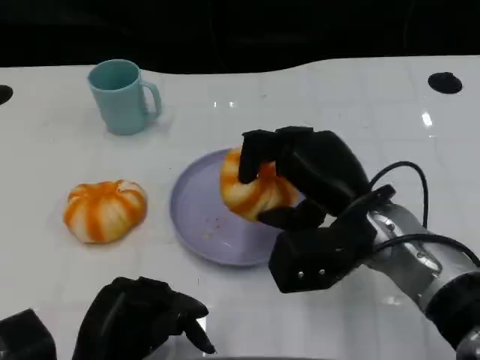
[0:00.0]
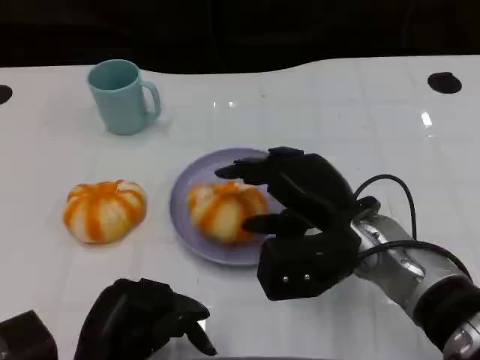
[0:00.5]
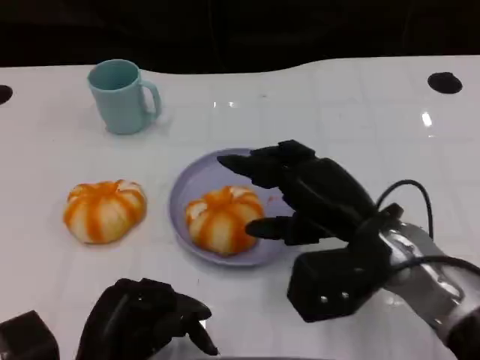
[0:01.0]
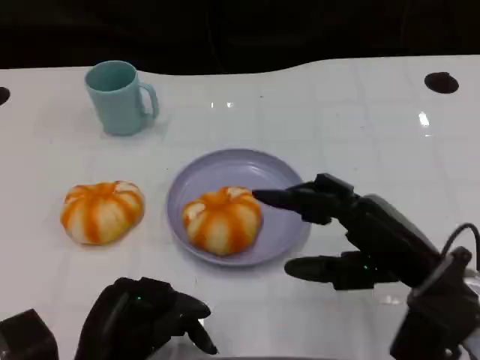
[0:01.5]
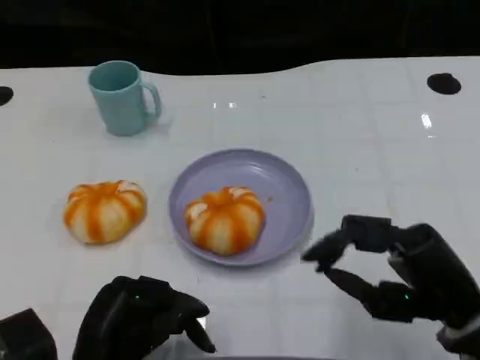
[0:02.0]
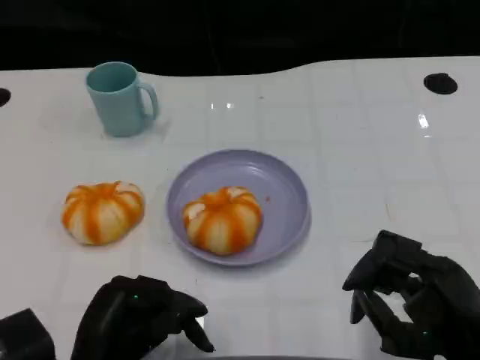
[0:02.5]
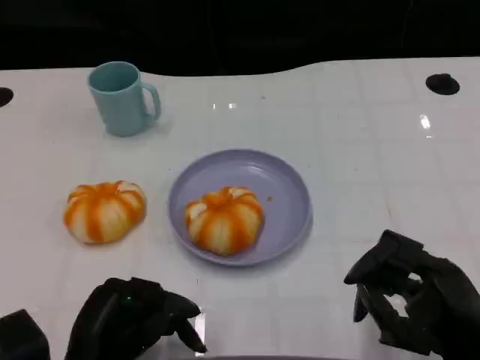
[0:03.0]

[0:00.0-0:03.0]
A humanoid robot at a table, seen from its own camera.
Task of the whole recording: Grasp the bread from the table and place it into the plate.
0:00.0 to 0:01.5: The right hand goes roughly 10 cm to the right and backward.
0:01.5 to 0:03.0: The right hand travels backward by approximately 5 cm.

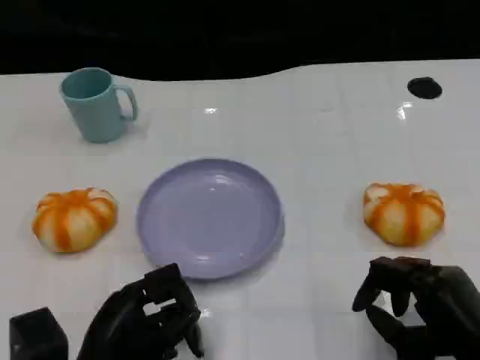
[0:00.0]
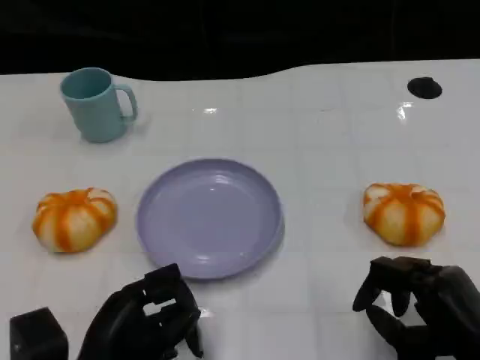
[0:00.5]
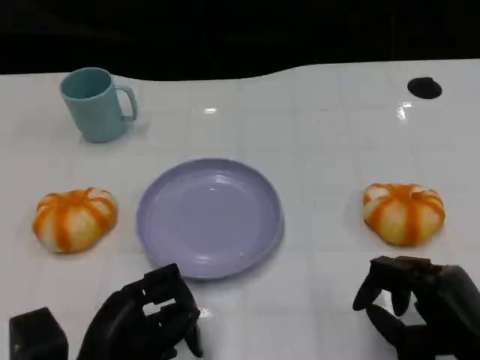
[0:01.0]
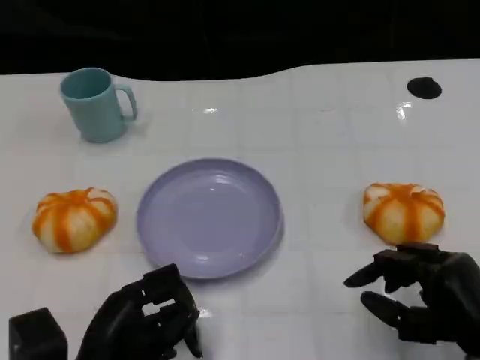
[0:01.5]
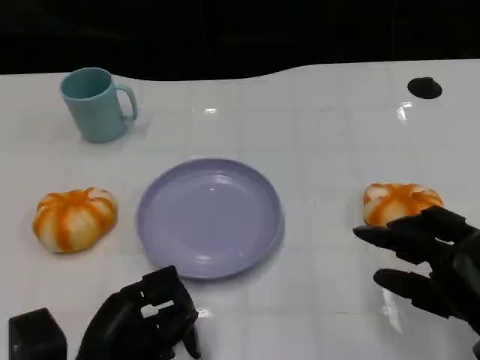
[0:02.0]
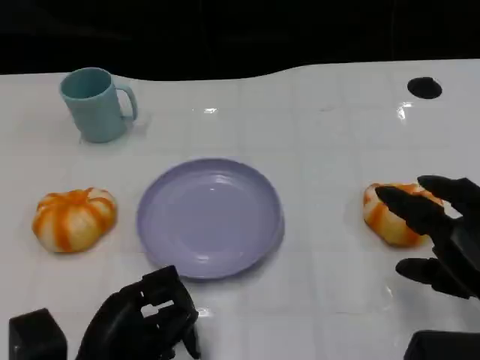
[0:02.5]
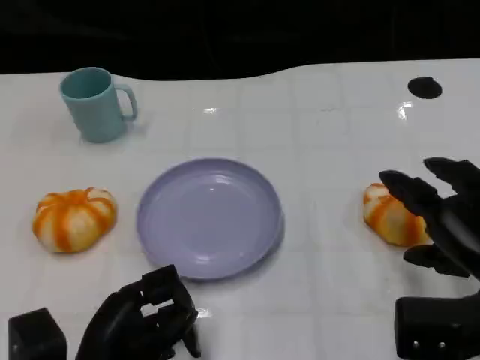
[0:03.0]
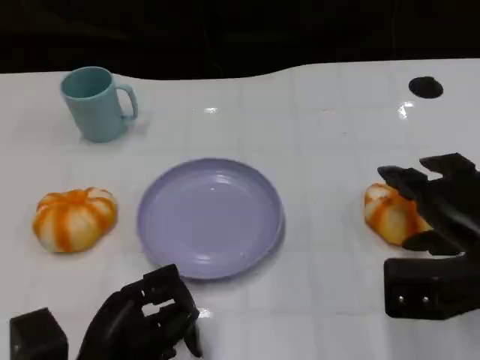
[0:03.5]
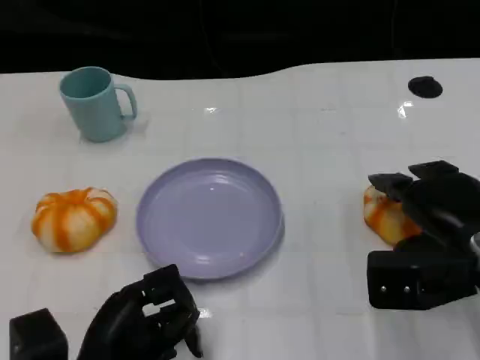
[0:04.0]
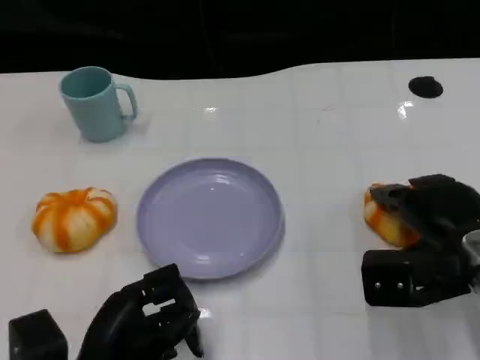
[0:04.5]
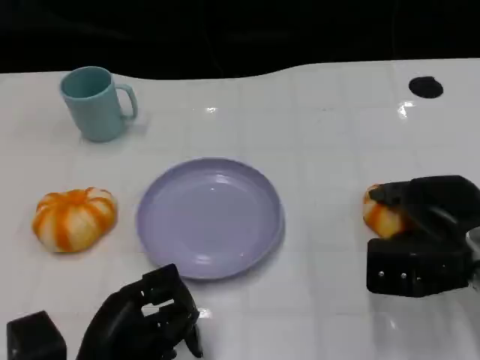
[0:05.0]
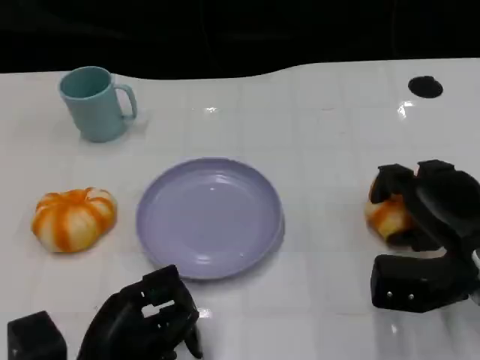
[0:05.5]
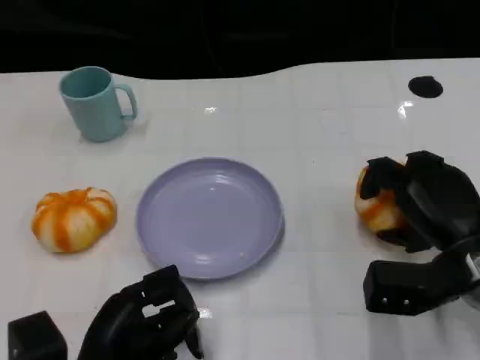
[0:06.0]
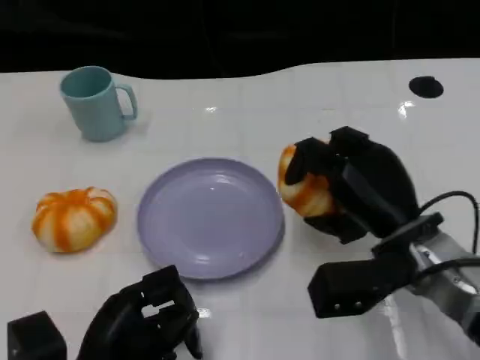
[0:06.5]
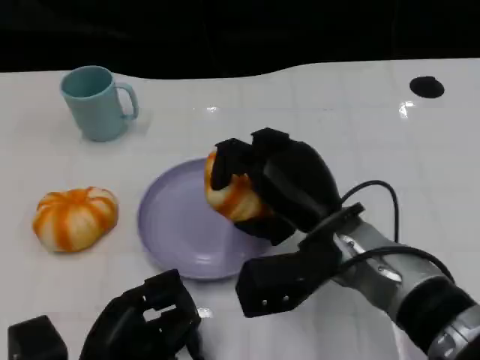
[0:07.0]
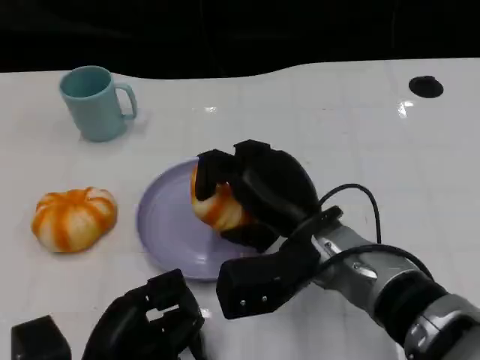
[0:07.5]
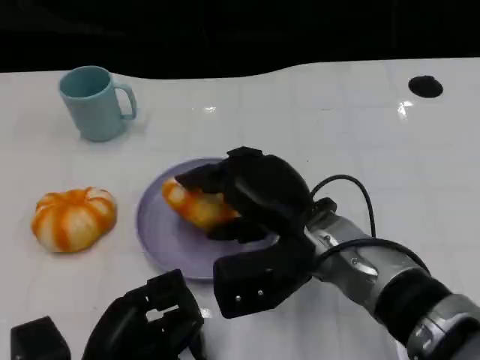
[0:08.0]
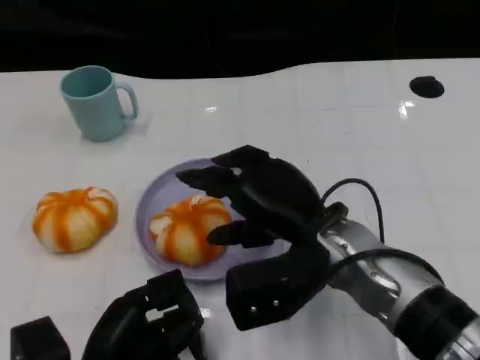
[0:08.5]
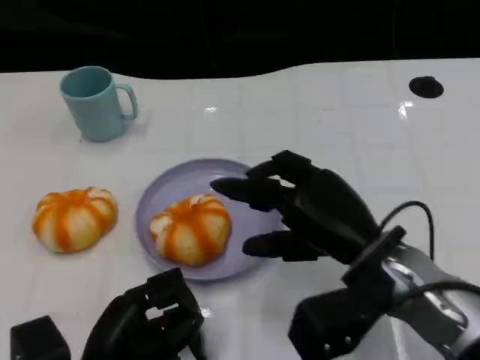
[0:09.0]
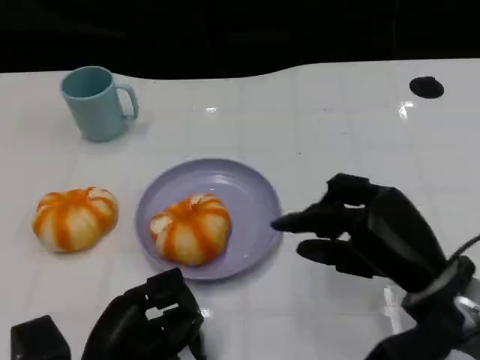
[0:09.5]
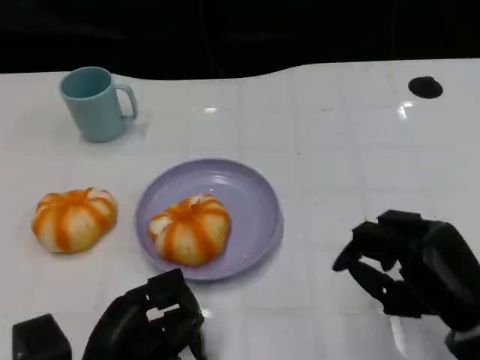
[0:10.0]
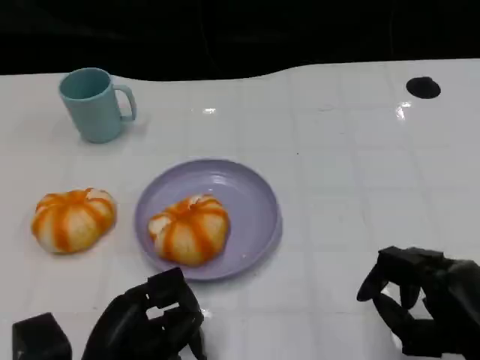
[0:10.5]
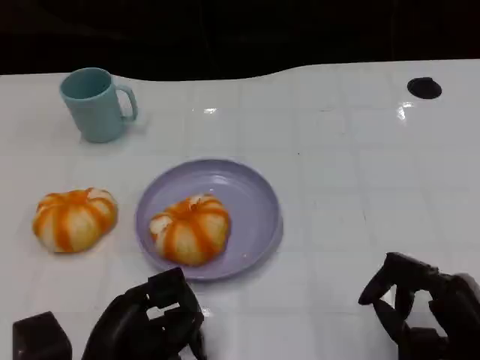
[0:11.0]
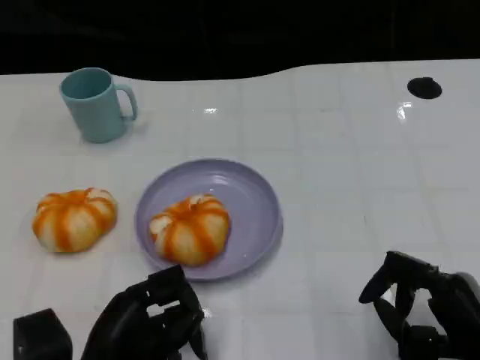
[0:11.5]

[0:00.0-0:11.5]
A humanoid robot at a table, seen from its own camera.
Task of the whole recording: Grasp the bread from the table and place it into the plate.
0:00.0 to 0:02.0: The hands move only a little.
0:02.0 to 0:04.0: The right hand heads forward, covering roughly 10 cm.
0:06.0 to 0:07.5: The right hand goes roughly 15 cm to the left.
0:07.5 to 0:09.5: The right hand heads to the right, covering approximately 10 cm.
0:09.5 to 0:11.5: The right hand travels backward by roughly 5 cm.

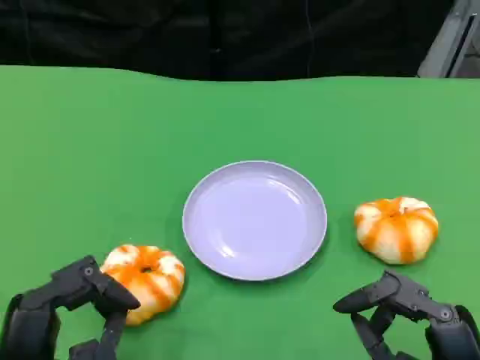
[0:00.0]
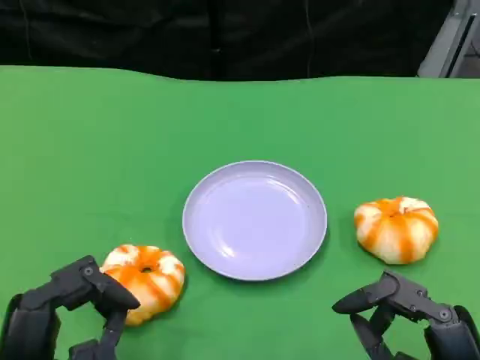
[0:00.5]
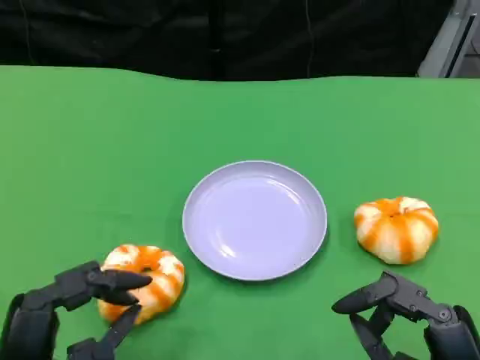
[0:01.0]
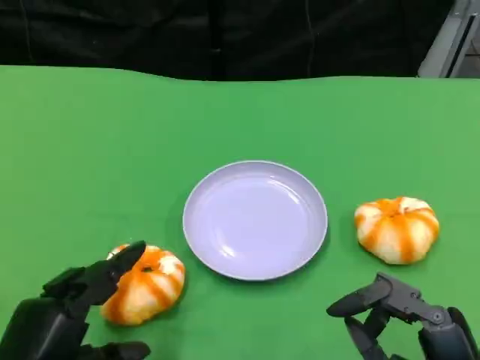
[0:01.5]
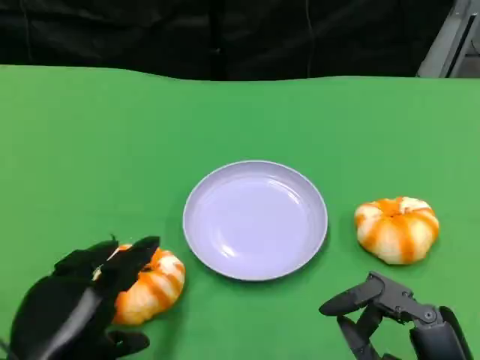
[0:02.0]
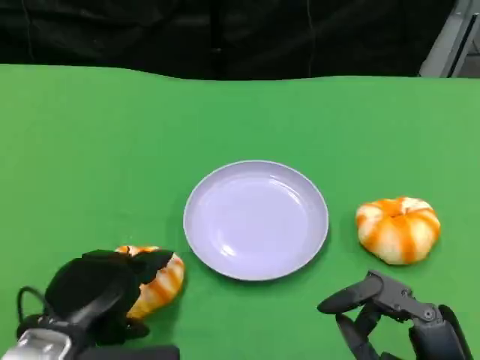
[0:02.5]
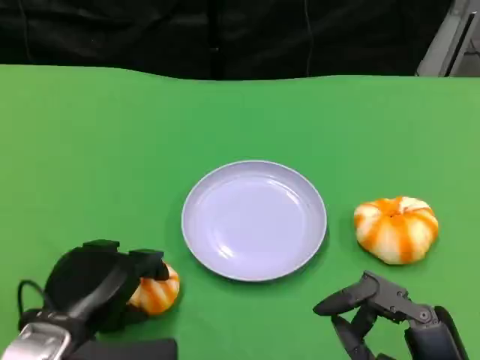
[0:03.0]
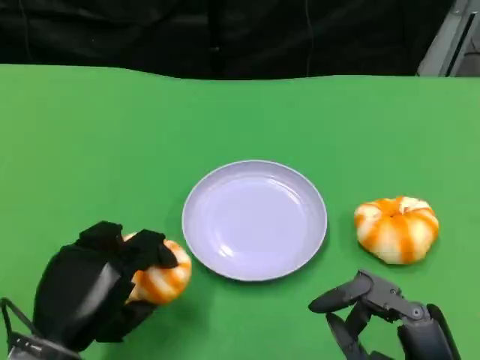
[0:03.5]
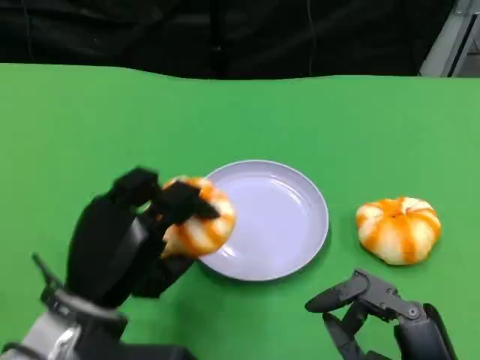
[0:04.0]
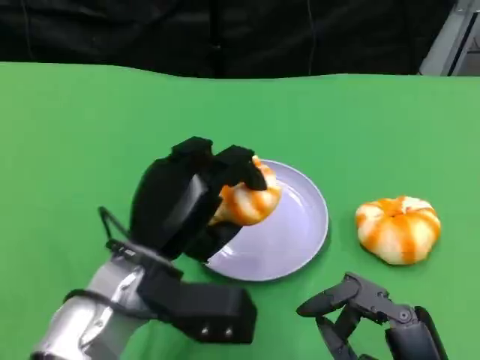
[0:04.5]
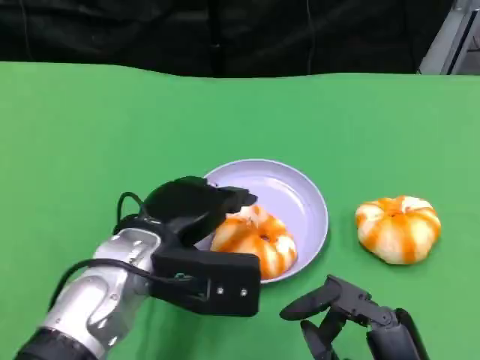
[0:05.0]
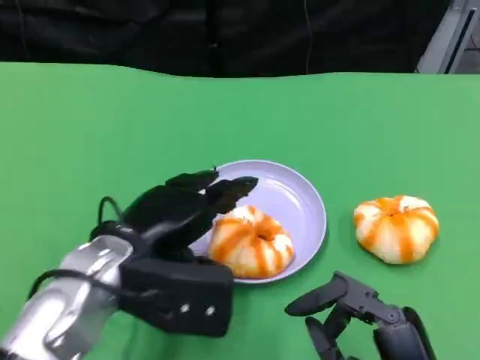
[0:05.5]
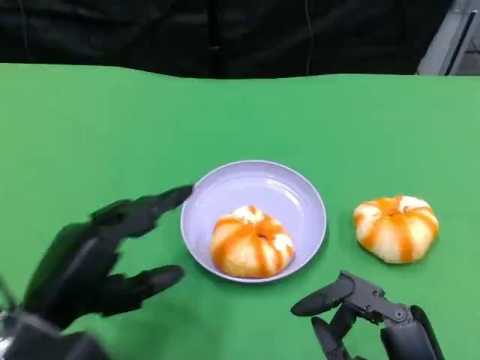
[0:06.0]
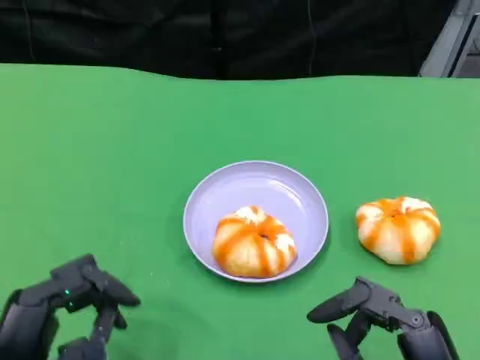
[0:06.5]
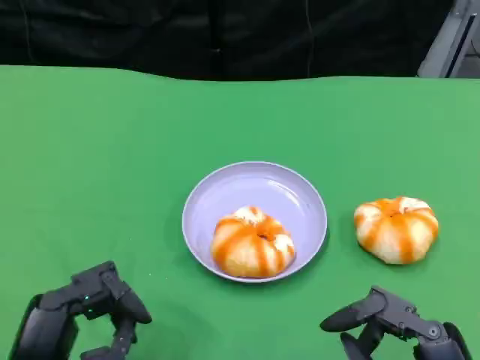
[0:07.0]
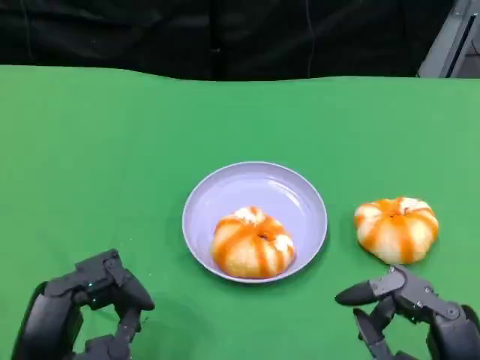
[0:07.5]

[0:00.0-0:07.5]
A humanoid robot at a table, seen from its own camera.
Task of the whole recording: Grasp the bread from the table and place it into the plate.
0:02.0 to 0:04.0: The left hand travels forward by some 5 cm.
0:05.5 to 0:07.5: The left hand shifts some 15 cm backward, to the left and downward.

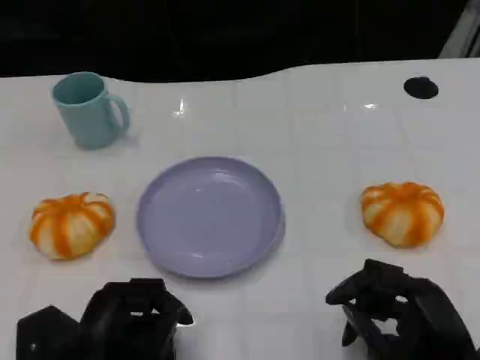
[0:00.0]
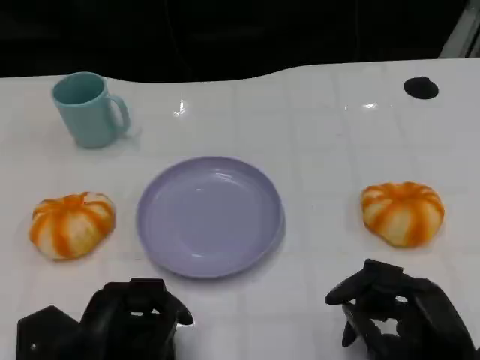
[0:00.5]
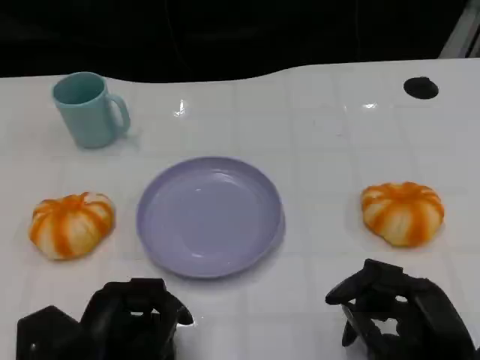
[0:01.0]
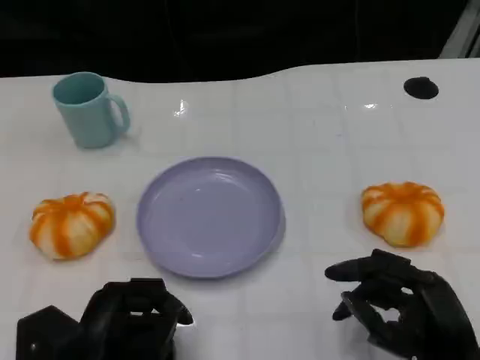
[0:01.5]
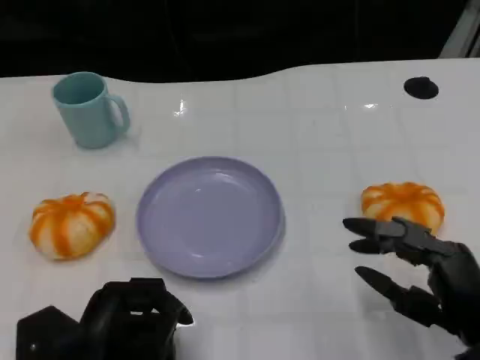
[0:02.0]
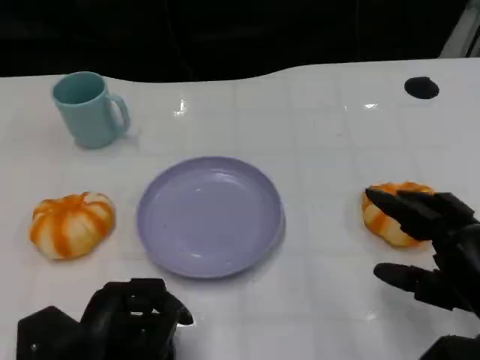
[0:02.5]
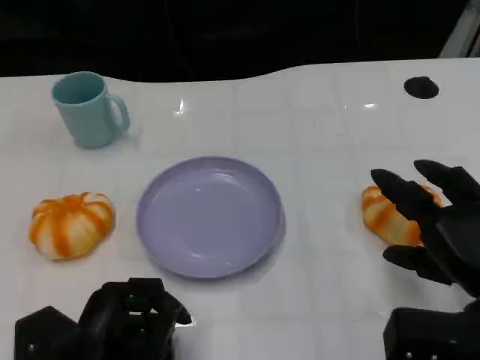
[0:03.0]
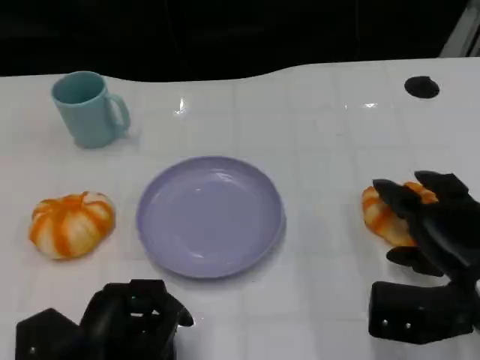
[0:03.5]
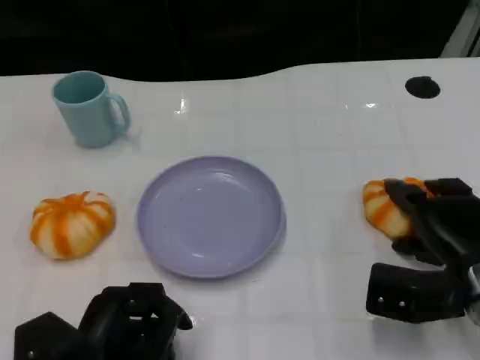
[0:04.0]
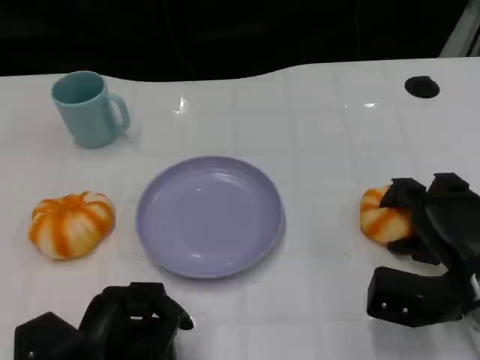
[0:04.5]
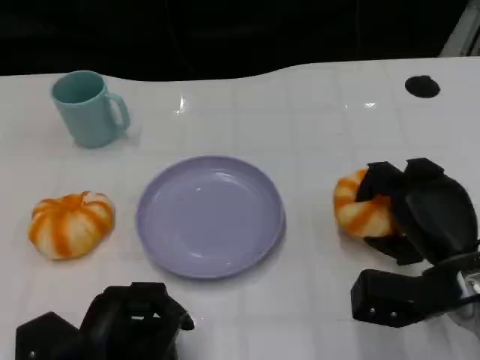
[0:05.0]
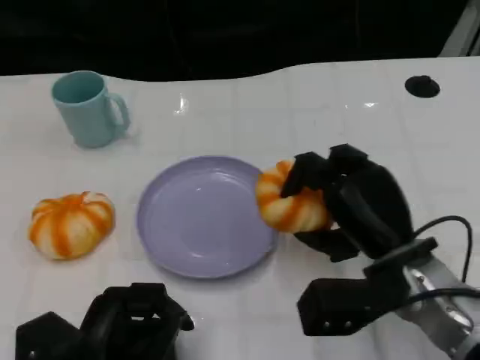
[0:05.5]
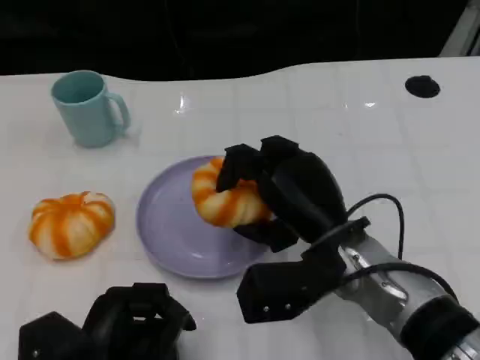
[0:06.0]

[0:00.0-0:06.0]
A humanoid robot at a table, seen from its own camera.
Task of the whole recording: Grasp the bread from the table and place it into the plate.
0:02.0 to 0:04.0: The right hand travels forward by approximately 10 cm.
0:04.0 to 0:06.0: The right hand moves to the left, roughly 15 cm.
